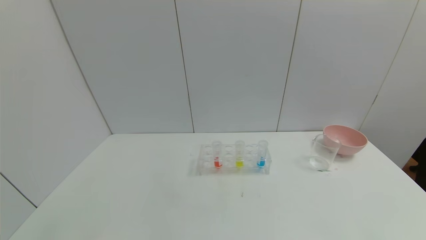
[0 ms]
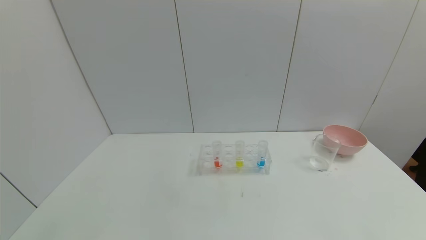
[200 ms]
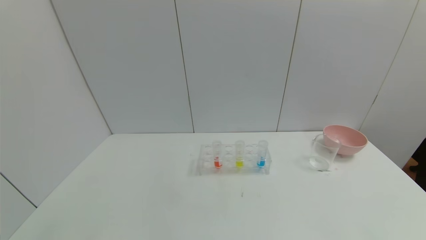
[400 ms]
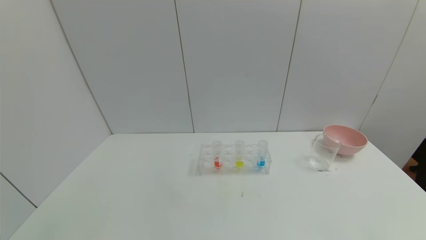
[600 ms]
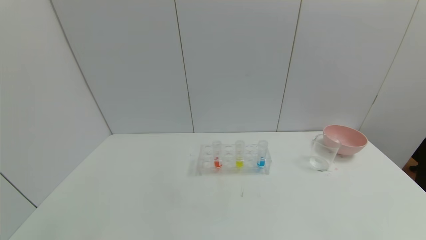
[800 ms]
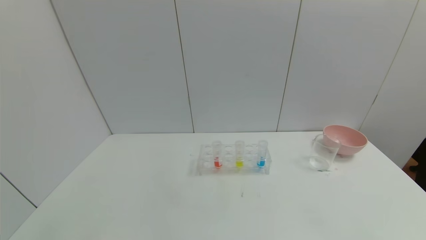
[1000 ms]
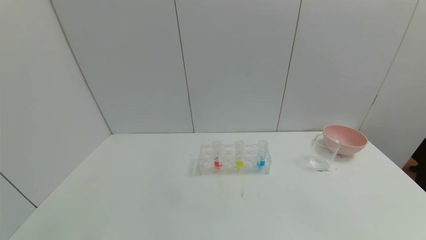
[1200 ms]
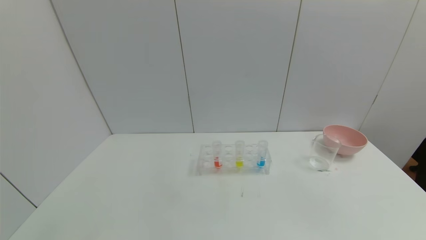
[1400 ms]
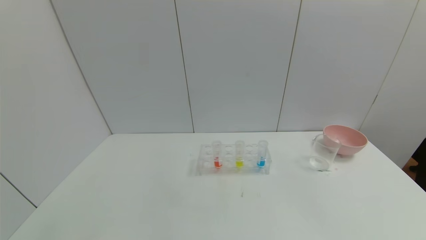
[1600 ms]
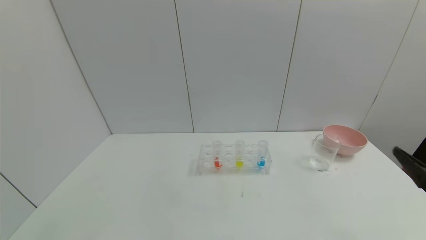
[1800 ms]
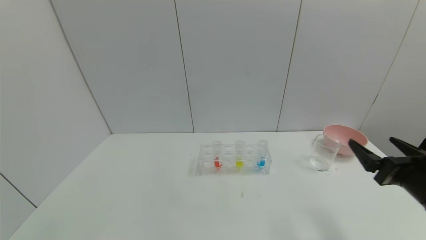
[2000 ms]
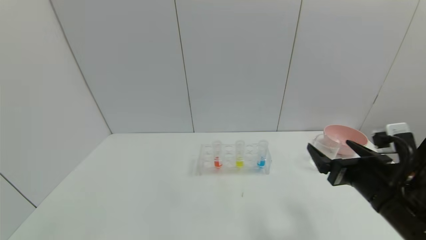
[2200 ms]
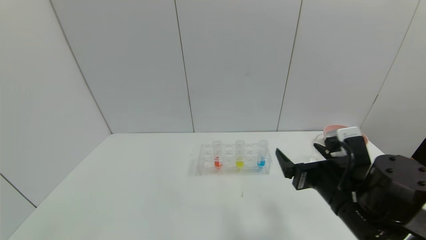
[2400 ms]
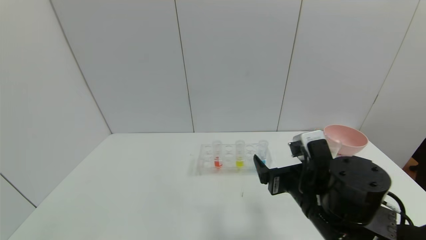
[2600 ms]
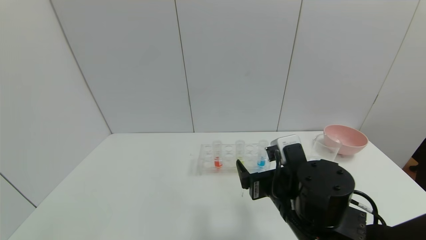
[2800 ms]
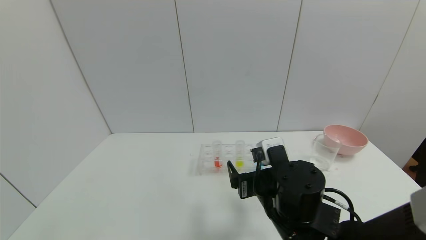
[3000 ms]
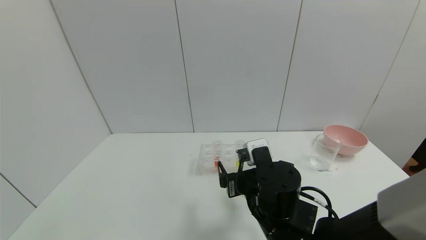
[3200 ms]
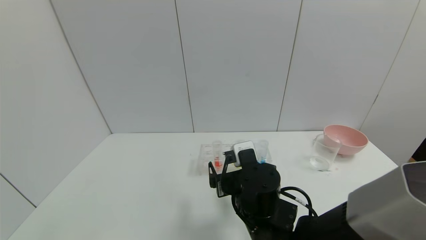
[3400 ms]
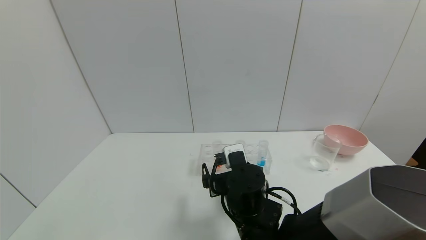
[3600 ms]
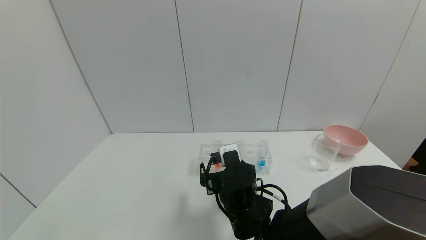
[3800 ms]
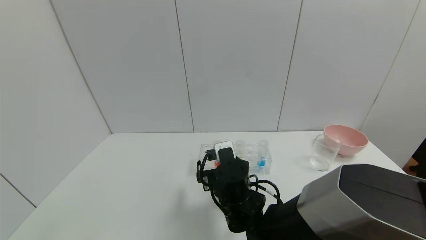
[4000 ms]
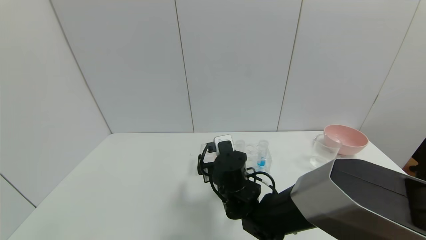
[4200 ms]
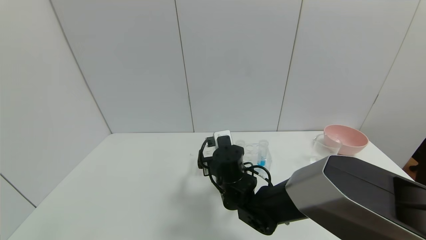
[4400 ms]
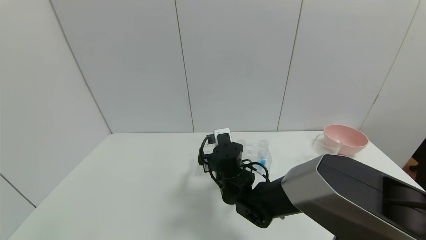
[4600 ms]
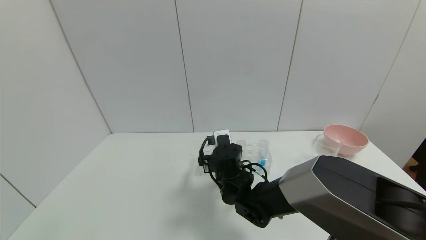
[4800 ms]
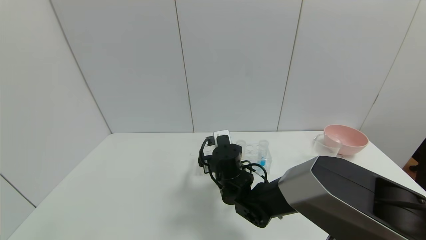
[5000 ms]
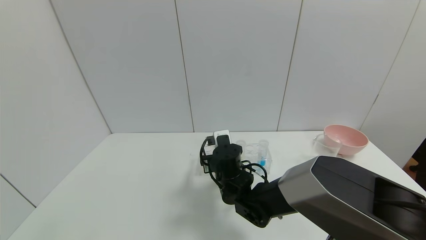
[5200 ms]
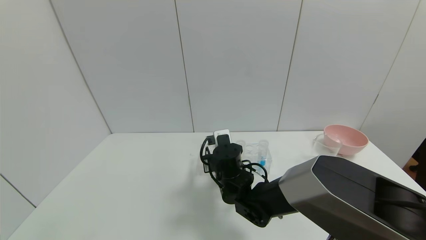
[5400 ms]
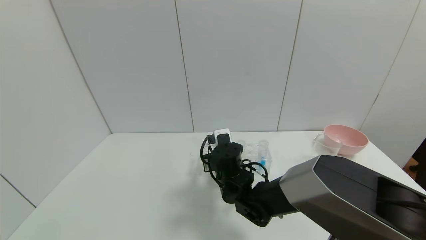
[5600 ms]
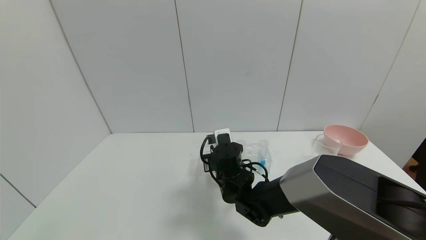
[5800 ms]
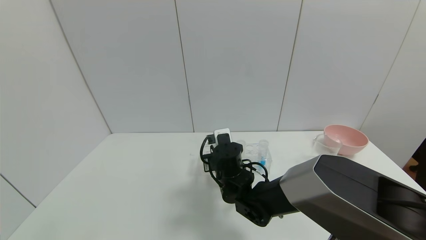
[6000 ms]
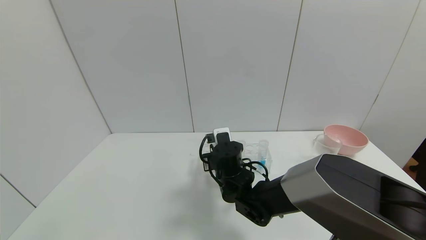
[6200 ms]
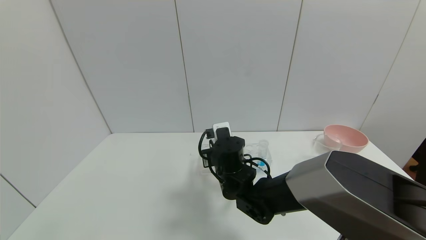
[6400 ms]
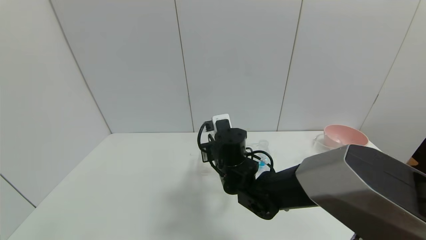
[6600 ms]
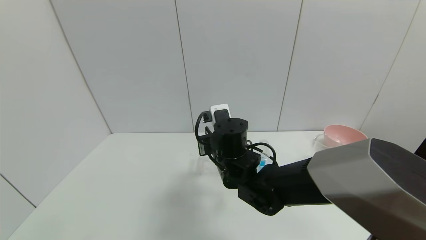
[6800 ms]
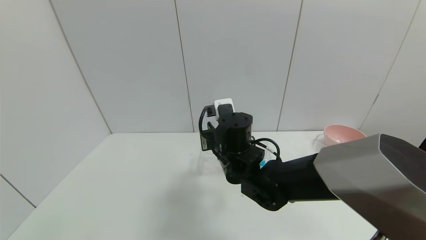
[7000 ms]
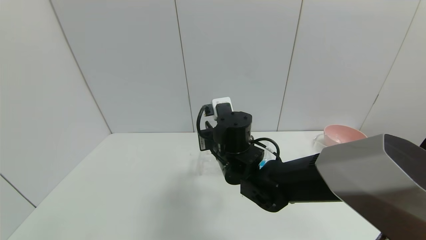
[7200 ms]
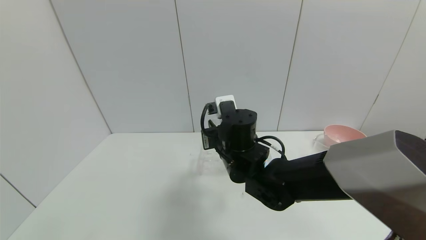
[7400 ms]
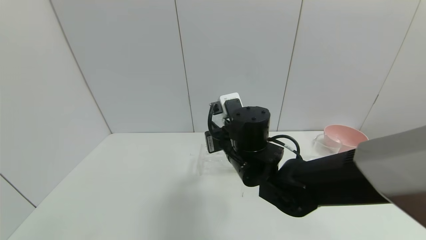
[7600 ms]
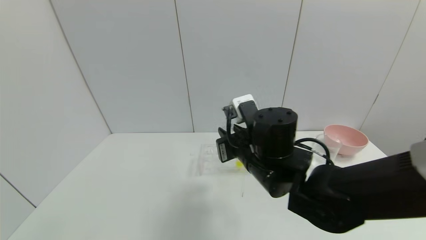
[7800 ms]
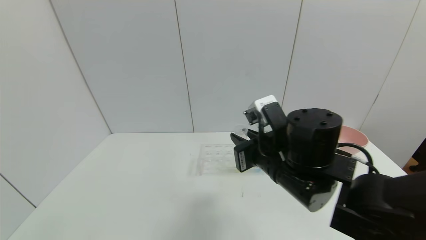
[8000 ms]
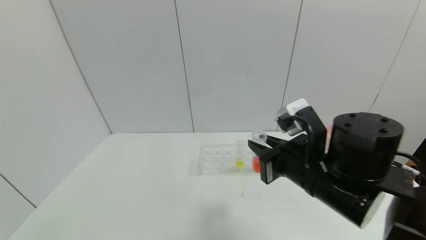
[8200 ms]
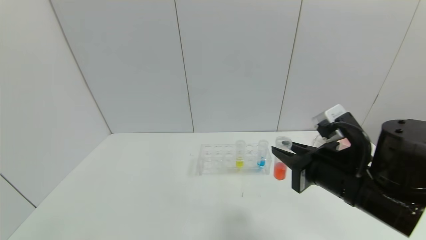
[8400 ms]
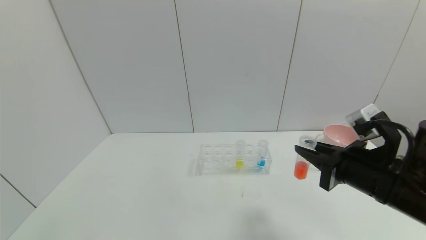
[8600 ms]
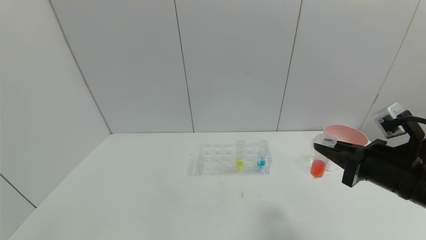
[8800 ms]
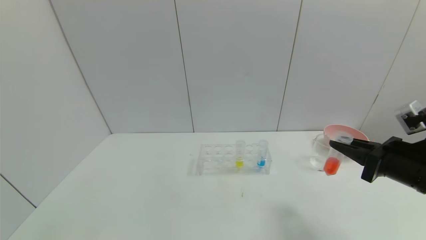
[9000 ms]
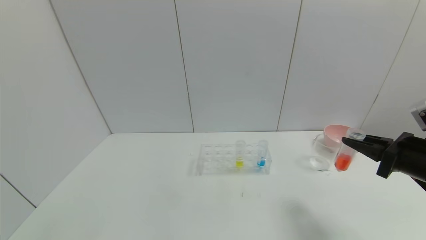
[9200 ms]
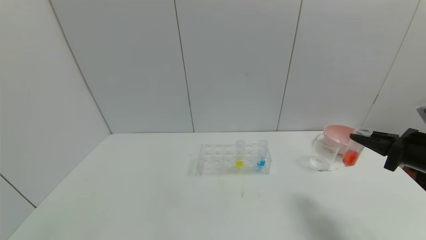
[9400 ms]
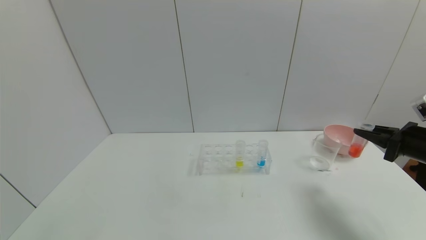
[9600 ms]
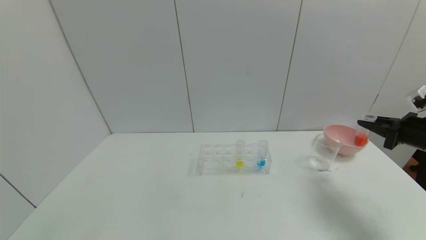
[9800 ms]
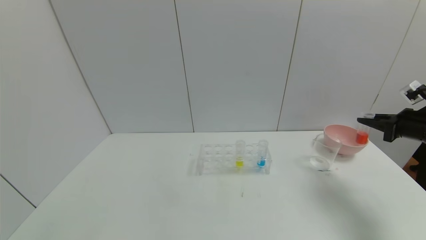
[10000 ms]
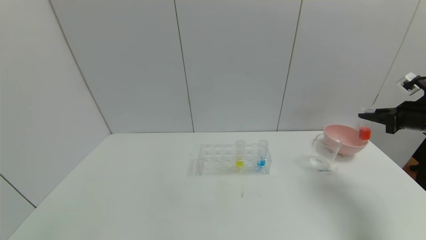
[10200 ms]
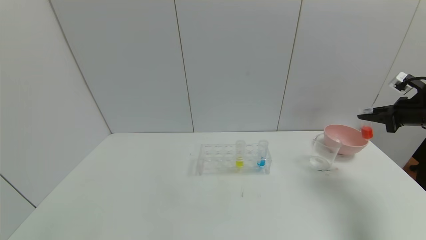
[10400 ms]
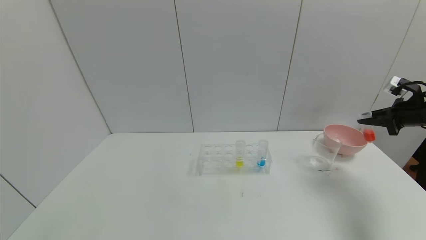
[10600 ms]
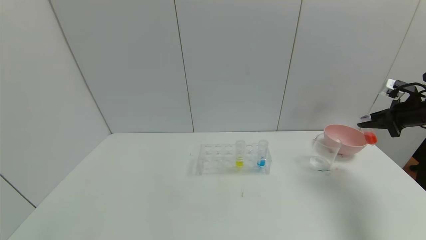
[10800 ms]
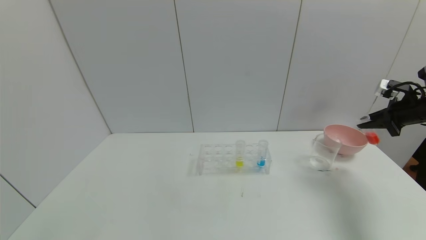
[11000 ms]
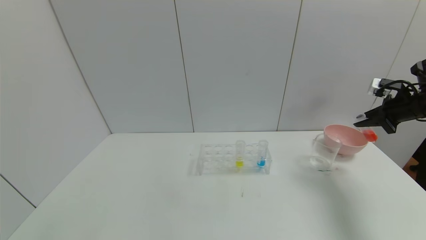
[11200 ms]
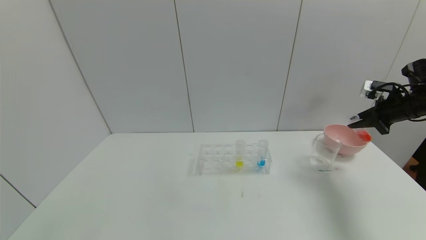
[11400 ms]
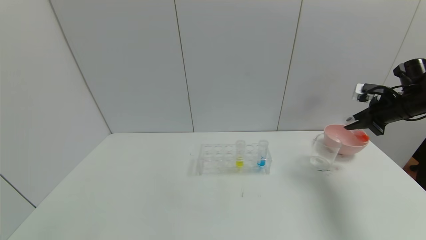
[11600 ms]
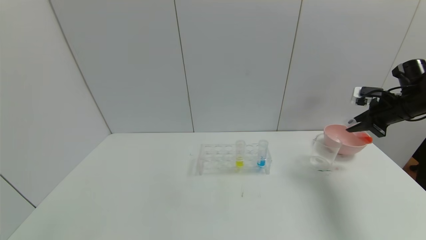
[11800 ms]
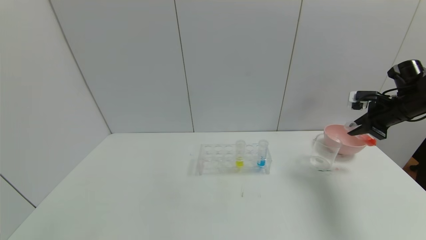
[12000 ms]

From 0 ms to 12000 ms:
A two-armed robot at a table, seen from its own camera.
Task of the whole recording: pick up the test tube with red pigment and the test tube with blue pigment by grippers and pour them into the container.
Step, from 0 ms to 5800 ms: Grasp the red reagent with the right gripper.
From 1600 ms to 3000 ms: The right gripper moves to the left and forward, some 30 cm.
From 3000 ms to 4400 ms: The right gripper goes approximately 15 cm forward and to the left.
From 4400 ms to 6000 ms: The right gripper closes up.
From 6000 ms to 7600 ms: The right gripper travels upward by some 10 cm.
From 7600 ms to 9000 ms: The right gripper shifts about 30 cm to the right.
From 9000 ms to 10400 ms: The right gripper travels to the right and forward by roughly 20 cm.
From 10400 ms to 12000 ms: The right gripper heads to the left, covering roughly 5 cm.

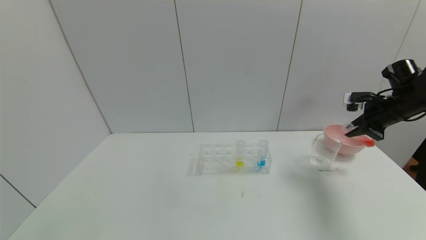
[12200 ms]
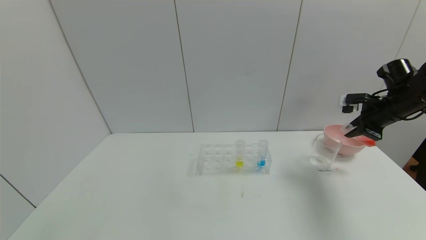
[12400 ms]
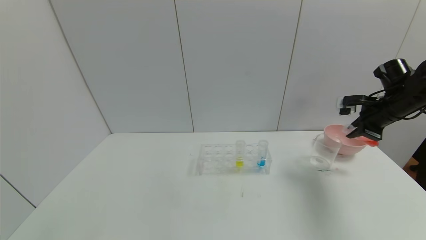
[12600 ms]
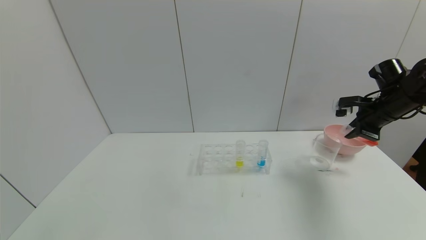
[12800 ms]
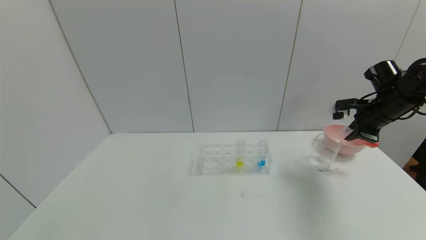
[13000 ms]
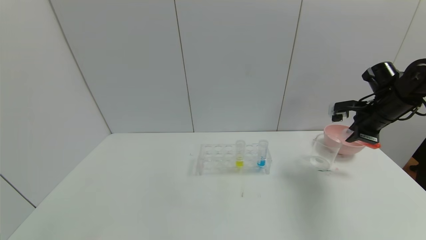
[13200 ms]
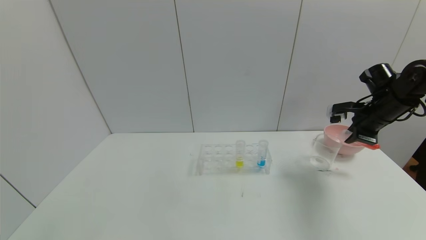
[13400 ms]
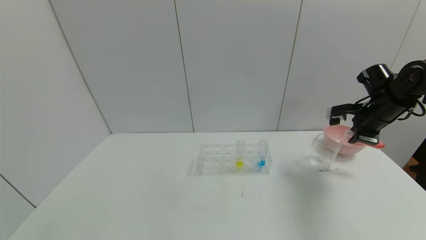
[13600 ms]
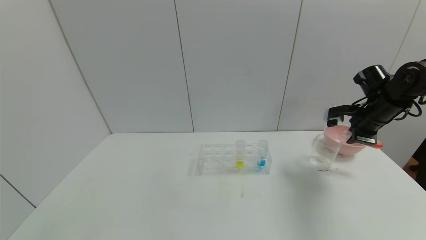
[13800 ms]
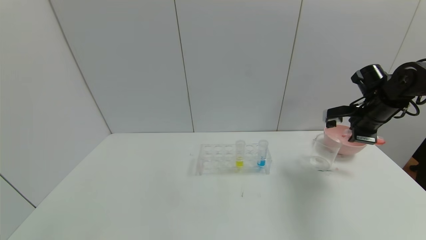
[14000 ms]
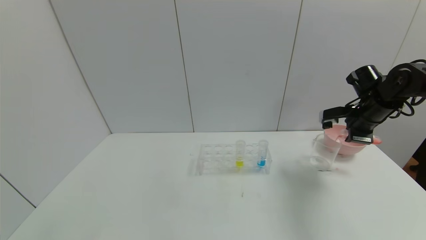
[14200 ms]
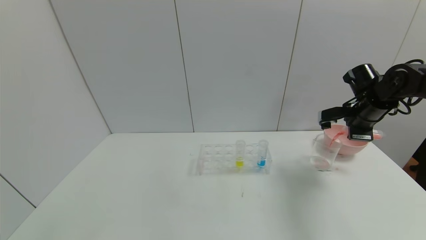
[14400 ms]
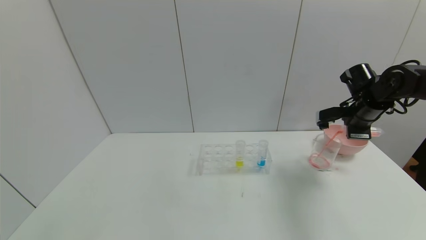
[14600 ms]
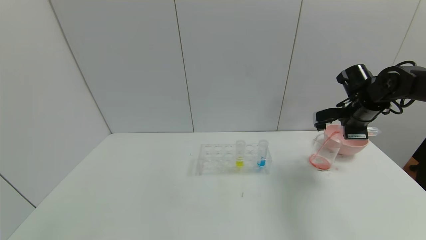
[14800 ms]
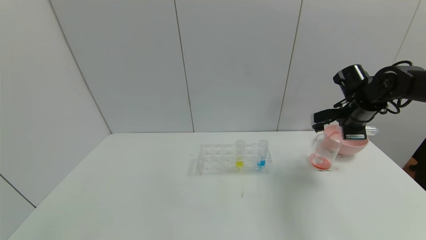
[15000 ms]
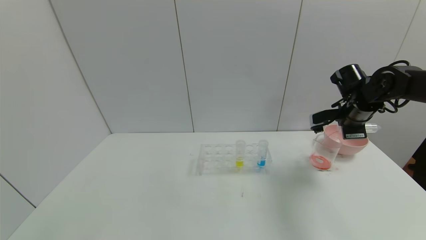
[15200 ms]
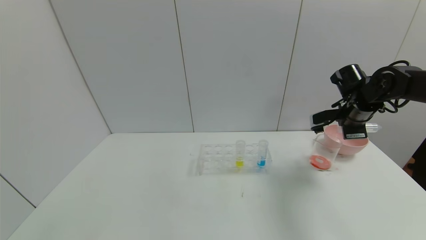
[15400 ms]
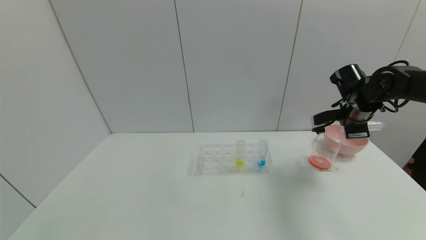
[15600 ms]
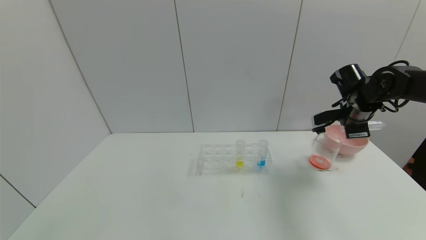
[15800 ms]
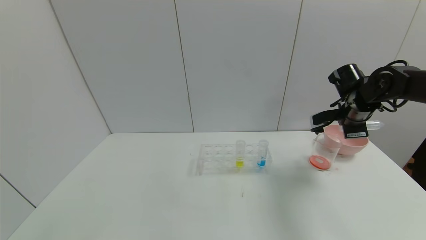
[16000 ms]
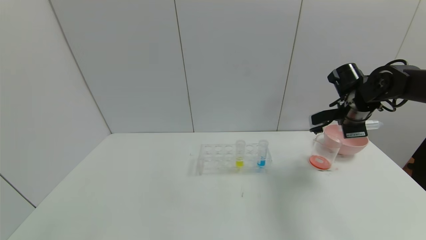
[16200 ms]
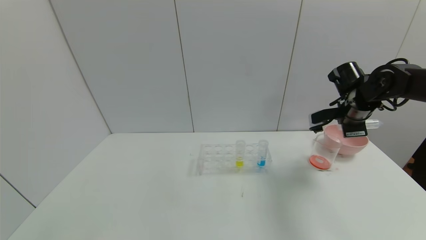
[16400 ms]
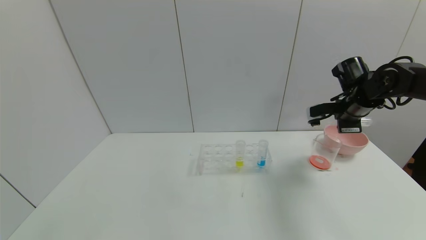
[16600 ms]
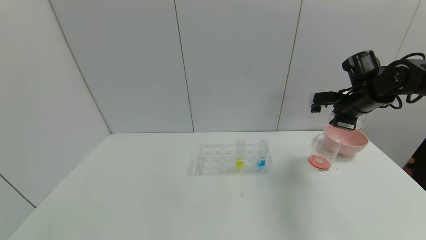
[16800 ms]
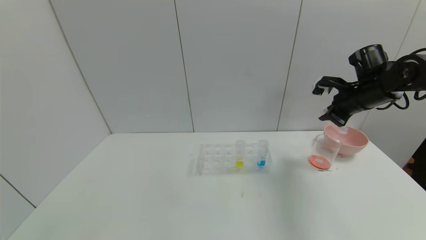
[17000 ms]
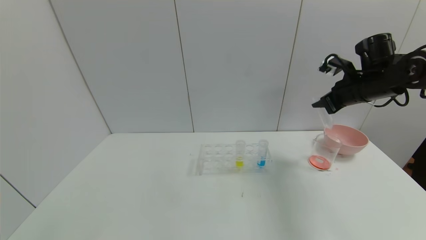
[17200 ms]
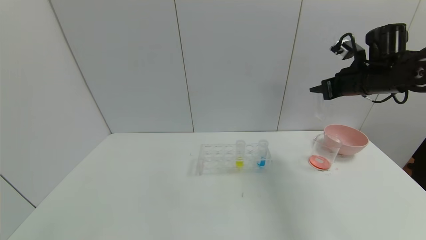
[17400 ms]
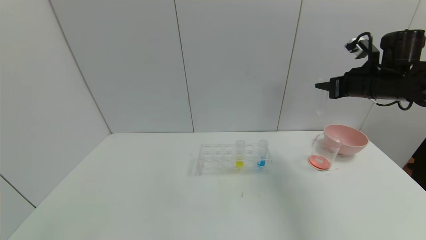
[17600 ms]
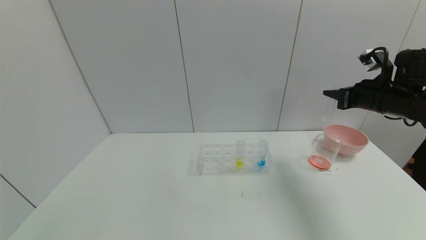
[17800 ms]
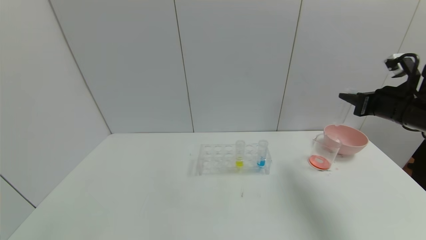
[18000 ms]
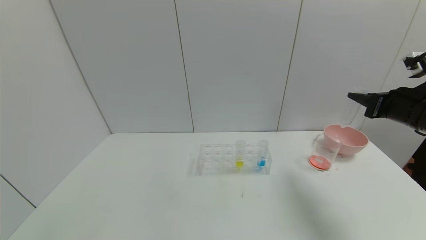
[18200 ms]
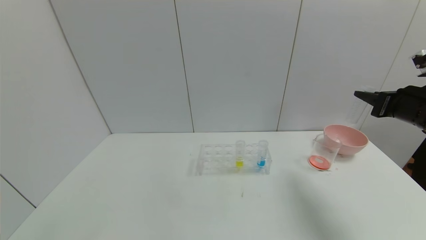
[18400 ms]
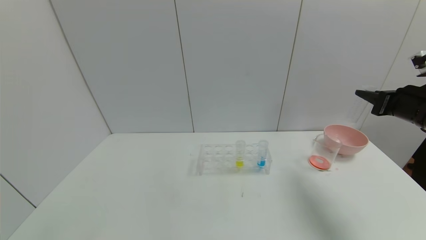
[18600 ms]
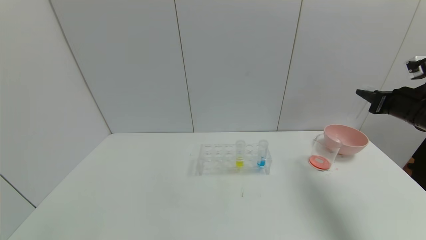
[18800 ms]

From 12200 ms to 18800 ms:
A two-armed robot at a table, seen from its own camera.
Task of the whole recording: pick up the test tube with red pigment and the test tube with blue pigment by grippers and pour them into the container.
Step, from 12200 ms to 15400 ms: Pour the red reagent into the graduated cylinder with the right gripper.
From 15400 ms to 17200 ms: The right gripper moves upward, about 5 cm.
From 17200 ms to 18800 ms: The right gripper travels to the right and backward by approximately 10 cm.
